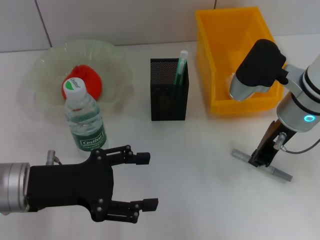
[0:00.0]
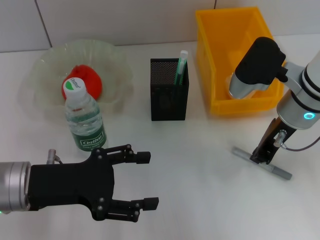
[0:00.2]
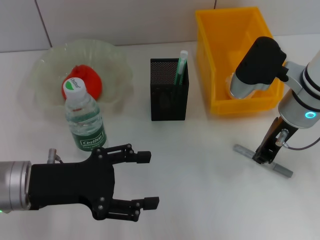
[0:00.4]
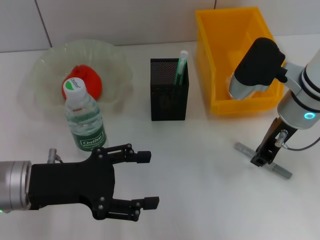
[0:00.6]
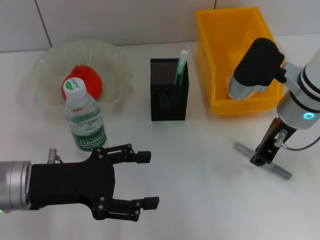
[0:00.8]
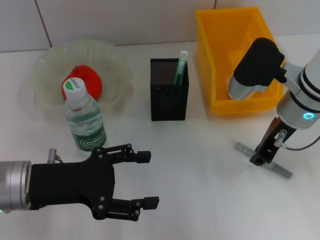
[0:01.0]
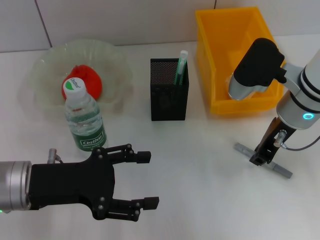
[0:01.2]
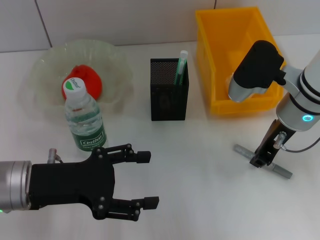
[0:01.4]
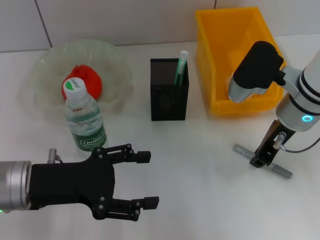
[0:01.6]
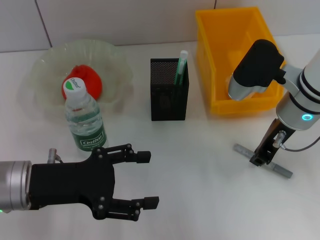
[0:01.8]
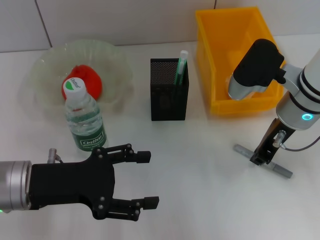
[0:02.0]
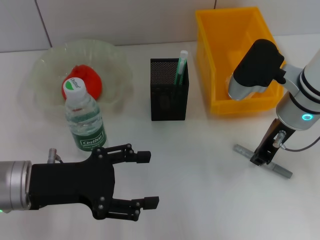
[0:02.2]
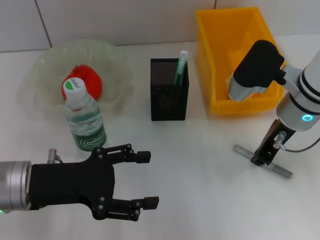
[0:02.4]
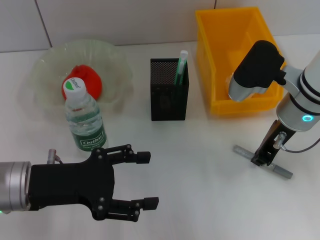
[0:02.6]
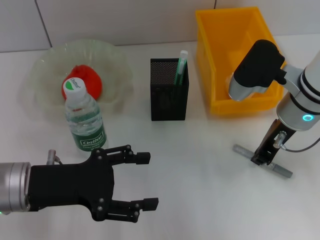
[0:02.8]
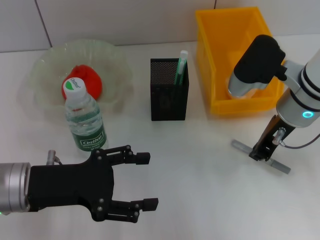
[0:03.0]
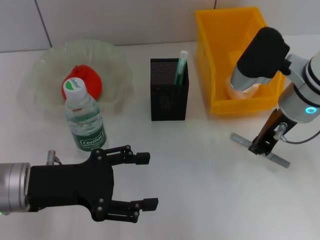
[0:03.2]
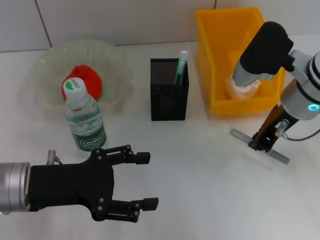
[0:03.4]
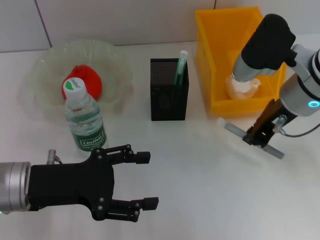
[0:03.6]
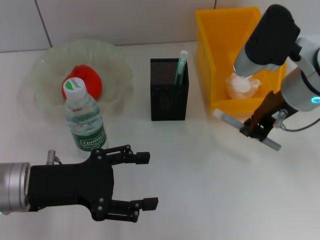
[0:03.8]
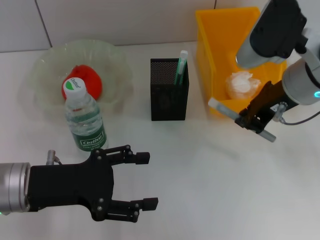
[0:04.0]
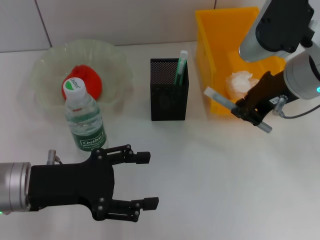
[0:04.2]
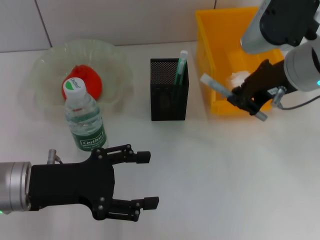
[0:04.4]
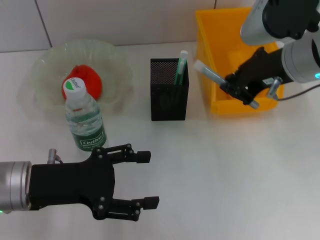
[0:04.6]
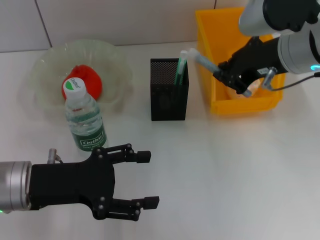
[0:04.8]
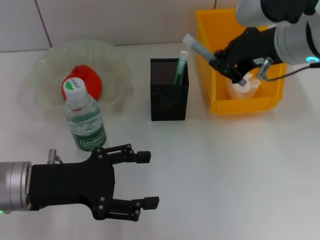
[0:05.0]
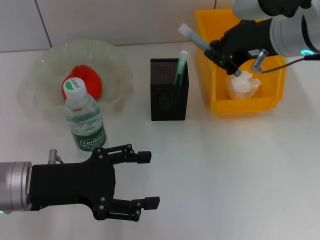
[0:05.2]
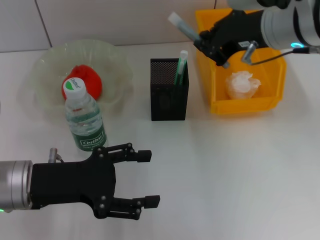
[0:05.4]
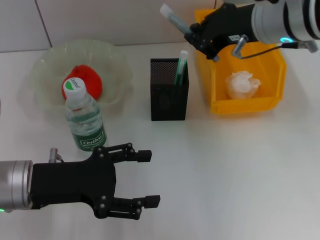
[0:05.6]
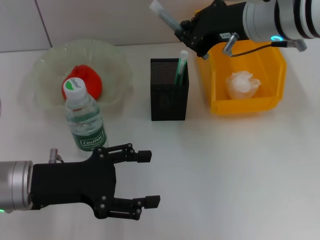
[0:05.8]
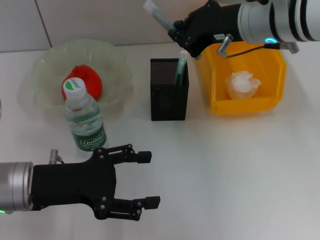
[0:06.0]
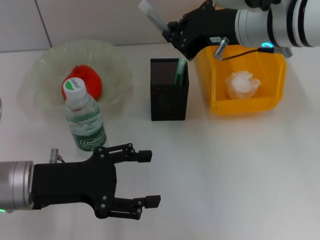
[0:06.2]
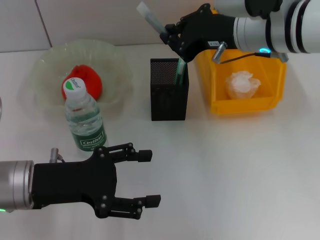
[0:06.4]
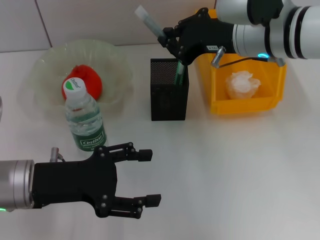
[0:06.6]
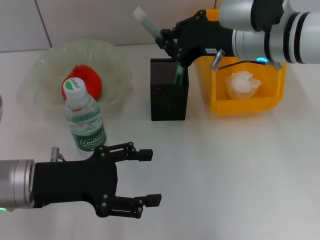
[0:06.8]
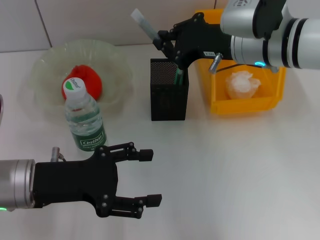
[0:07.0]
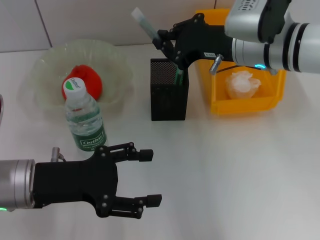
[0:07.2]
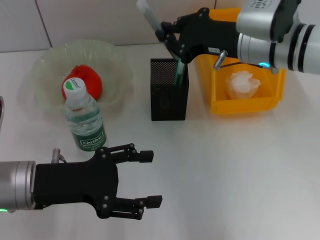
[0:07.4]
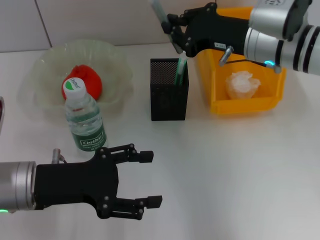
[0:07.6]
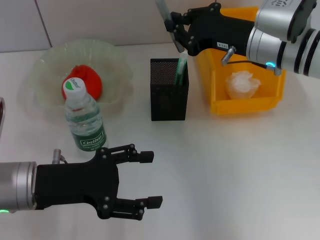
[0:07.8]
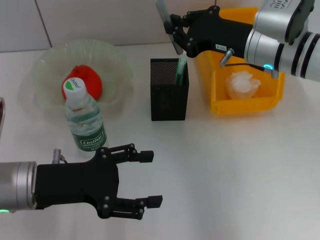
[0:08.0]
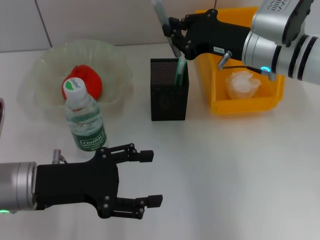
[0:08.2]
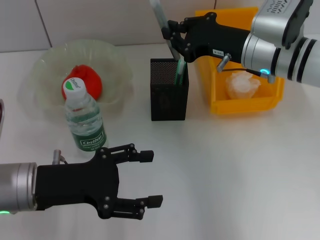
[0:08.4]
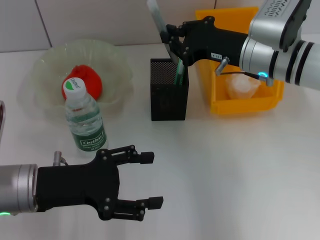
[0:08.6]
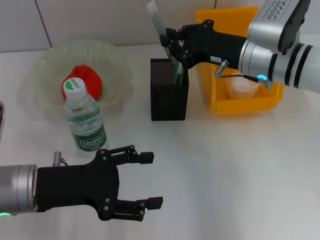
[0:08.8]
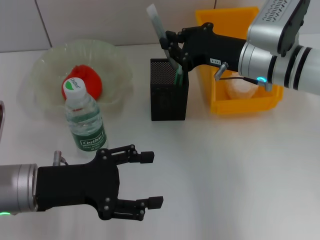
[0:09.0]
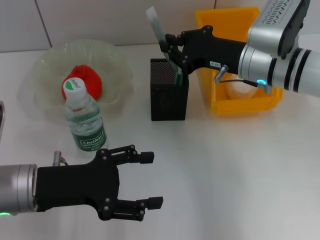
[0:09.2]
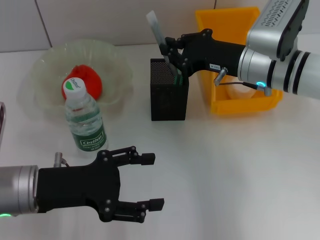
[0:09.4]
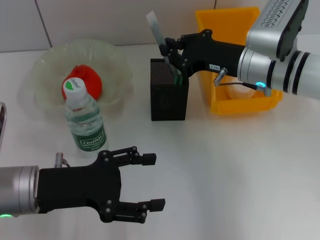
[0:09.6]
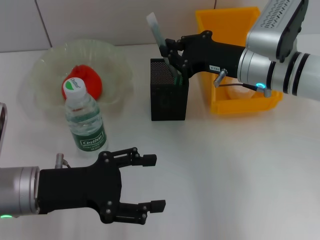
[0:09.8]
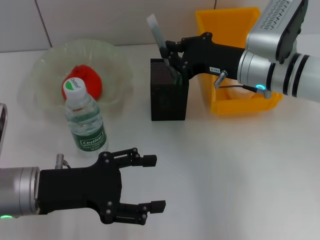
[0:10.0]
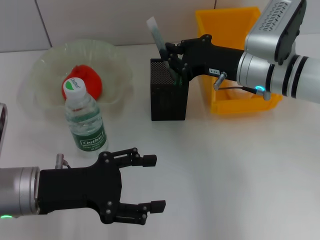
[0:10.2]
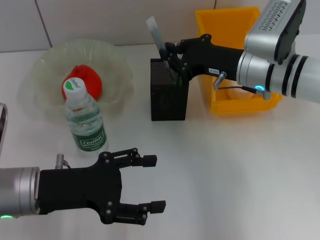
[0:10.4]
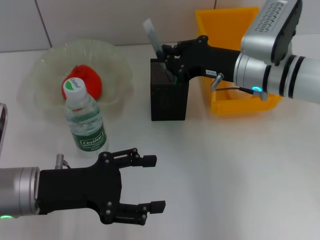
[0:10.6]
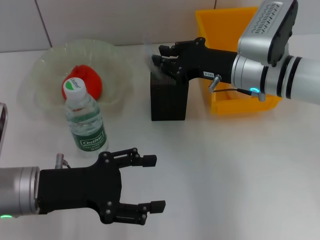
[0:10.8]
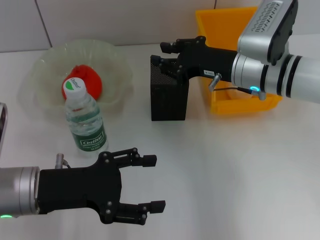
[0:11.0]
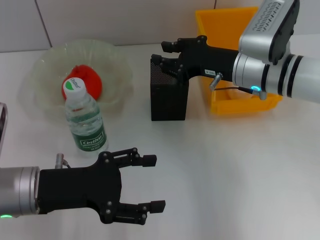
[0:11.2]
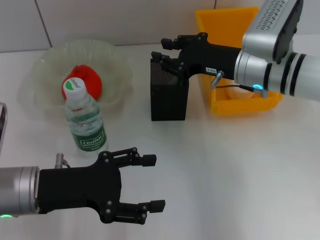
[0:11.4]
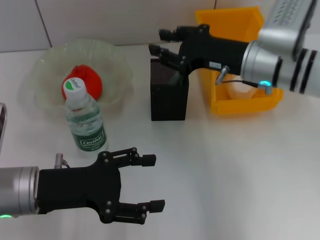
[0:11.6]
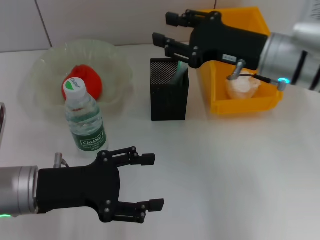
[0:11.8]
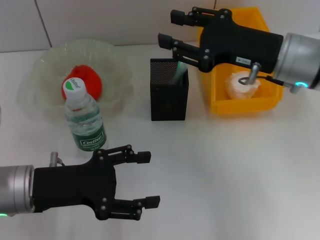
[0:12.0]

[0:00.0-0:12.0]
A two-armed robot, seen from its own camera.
Step, 0:00.0 to 0:02.6: Grab the gray glue with the right hand.
Step, 0:02.8 to 0:11.2: Place the gray glue into the pen holder with the right hand.
0:00.0 to 0:03.0: Both grippers stay about where they are.
0:03.0 to 0:04.4: The right gripper is displaced upward by roughly 10 cm.
0:04.4 to 0:06.0: The right gripper ends up some 5 cm from where it was.
0:06.0 to 0:07.6: The right gripper is displaced downward by approximately 5 cm.
0:07.6 to 0:09.0: The grippers make only small movements.
0:09.0 to 0:10.4: Both grippers stay put.
0:10.4 to 0:12.0: The right gripper ends up roughly 5 cm from where it was, and opens its fingers.

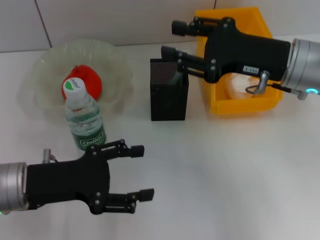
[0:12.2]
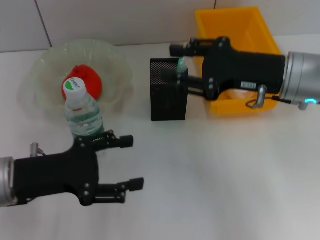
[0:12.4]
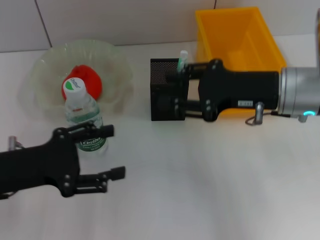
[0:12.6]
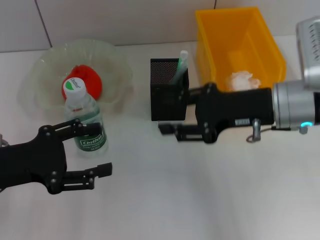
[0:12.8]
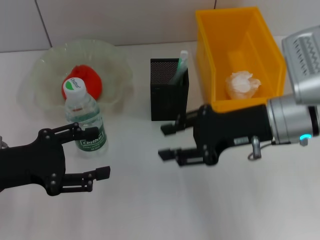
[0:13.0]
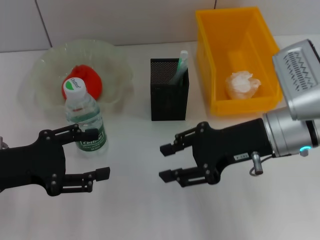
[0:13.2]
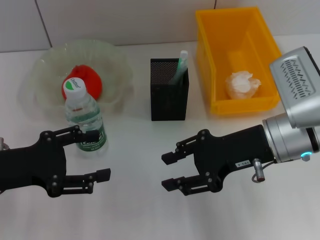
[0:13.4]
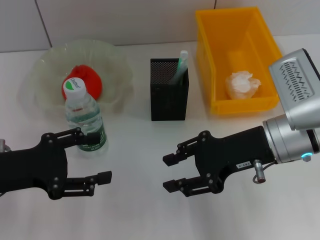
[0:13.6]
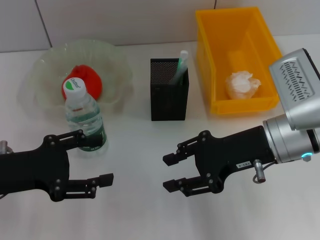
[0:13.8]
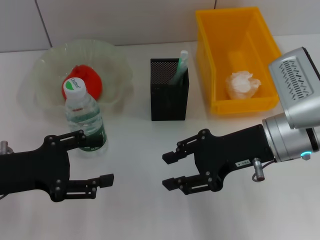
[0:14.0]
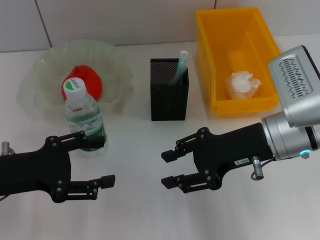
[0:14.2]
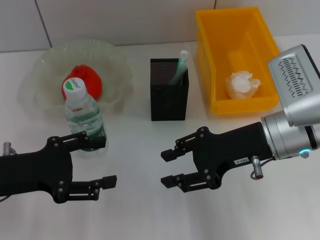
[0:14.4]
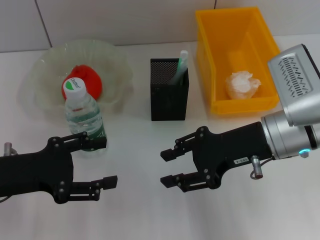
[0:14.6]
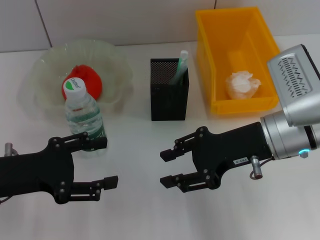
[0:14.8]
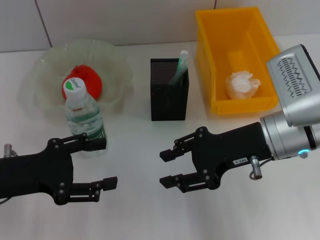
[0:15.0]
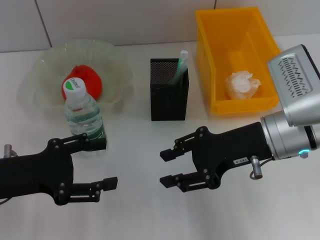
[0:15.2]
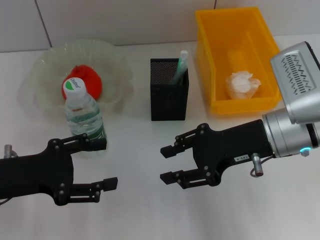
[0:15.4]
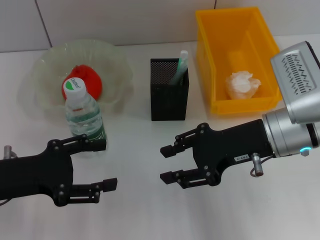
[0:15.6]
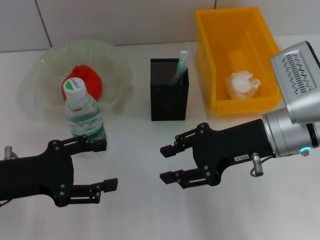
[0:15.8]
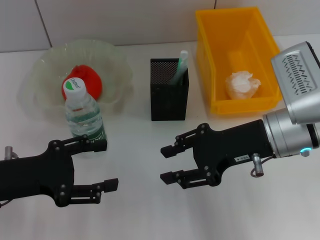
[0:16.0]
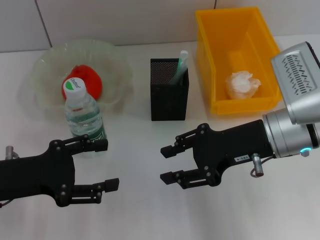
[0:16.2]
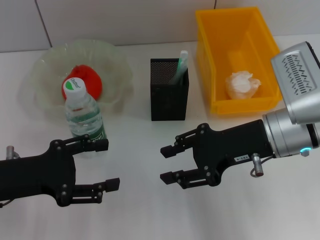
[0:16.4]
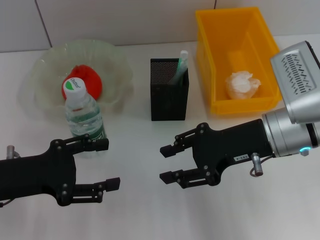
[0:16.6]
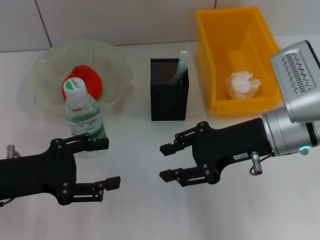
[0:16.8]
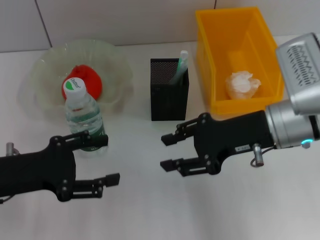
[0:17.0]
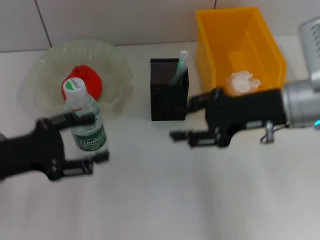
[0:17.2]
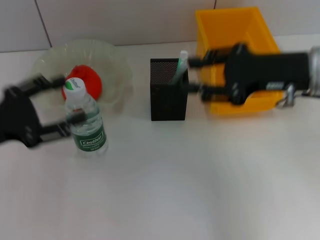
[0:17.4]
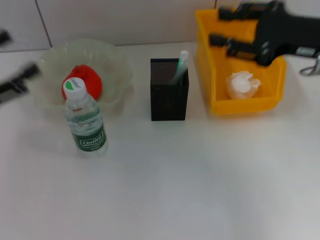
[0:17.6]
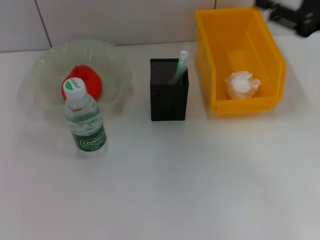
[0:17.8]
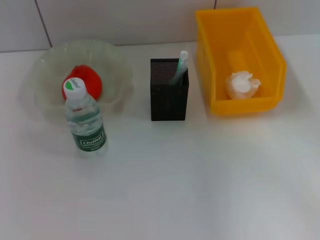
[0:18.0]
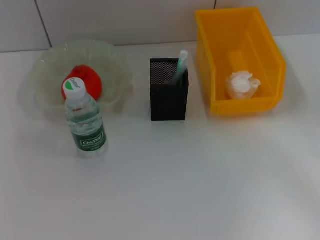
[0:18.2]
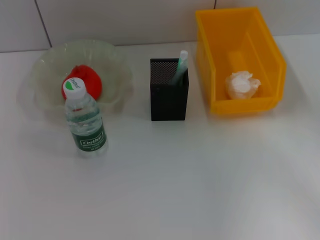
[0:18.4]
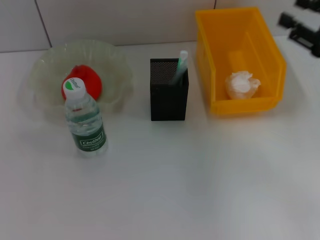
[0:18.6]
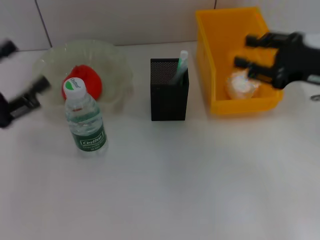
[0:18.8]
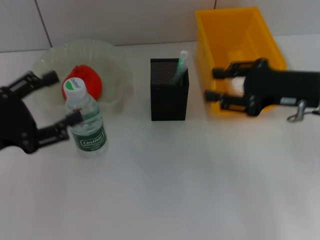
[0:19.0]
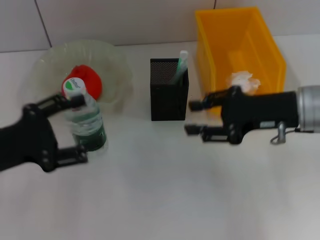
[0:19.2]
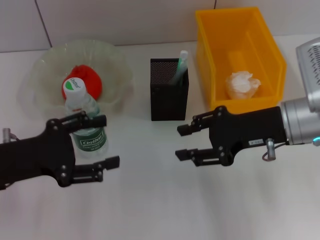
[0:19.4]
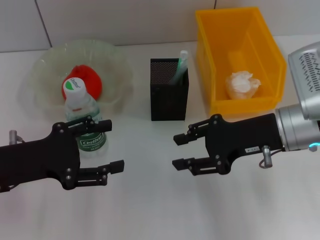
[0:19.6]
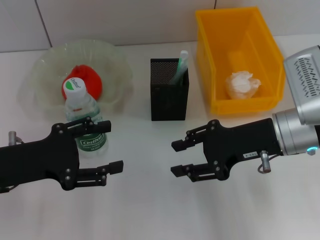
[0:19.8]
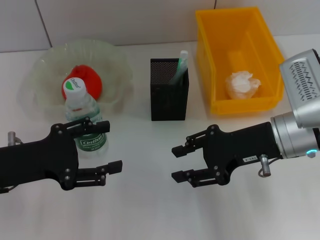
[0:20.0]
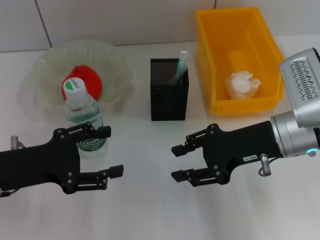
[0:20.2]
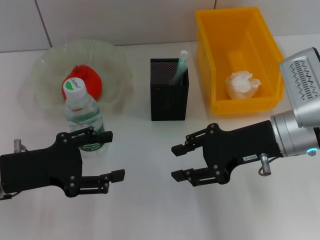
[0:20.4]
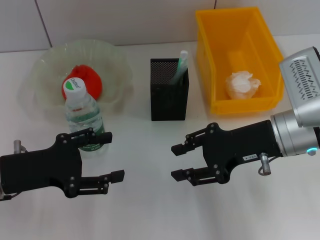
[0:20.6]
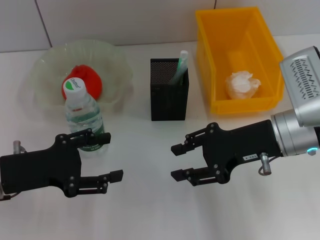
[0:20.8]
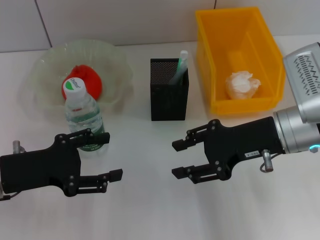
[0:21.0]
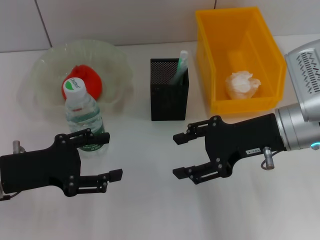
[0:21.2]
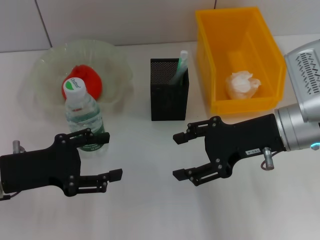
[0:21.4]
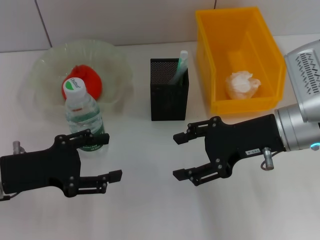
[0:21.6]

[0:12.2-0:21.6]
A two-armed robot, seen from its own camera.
0:12.2 to 0:13.8: The right gripper shifts by approximately 5 cm.
0:13.8 to 0:15.4: Neither gripper changes place.
0:15.4 to 0:17.0: Both grippers stay about where they are.
0:17.0 to 0:18.4: The left gripper is displaced to the left by about 10 cm. Meanwhile the right gripper heads to the right, covering some 20 cm.
0:18.4 to 0:20.0: The right gripper heads to the left, covering some 15 cm. The left gripper travels to the right by approximately 10 cm.
0:20.0 to 0:21.6: The grippers make only small movements.

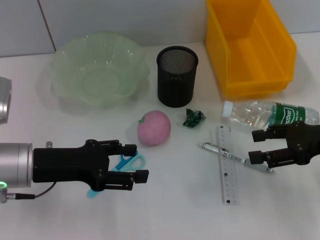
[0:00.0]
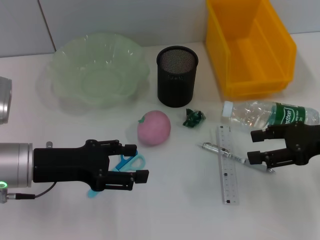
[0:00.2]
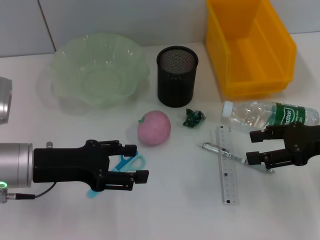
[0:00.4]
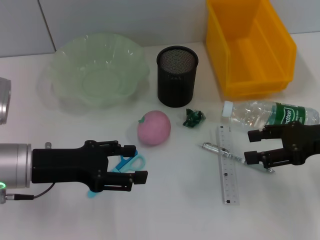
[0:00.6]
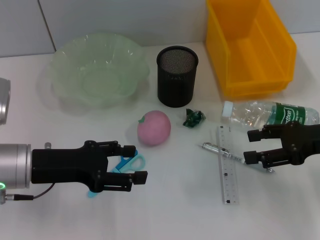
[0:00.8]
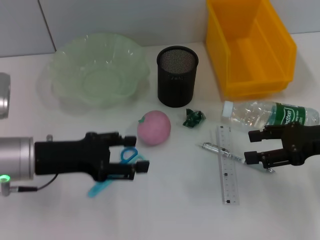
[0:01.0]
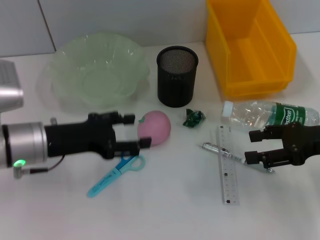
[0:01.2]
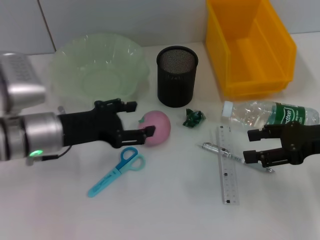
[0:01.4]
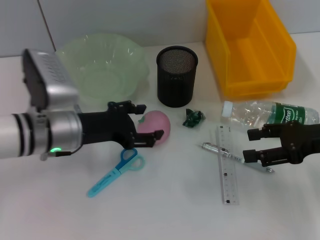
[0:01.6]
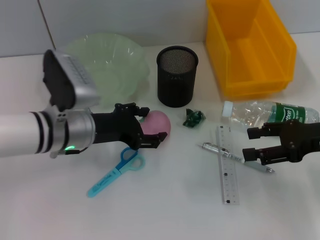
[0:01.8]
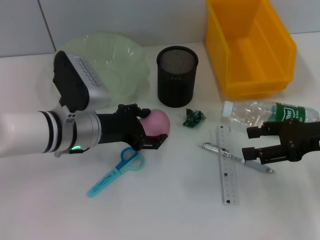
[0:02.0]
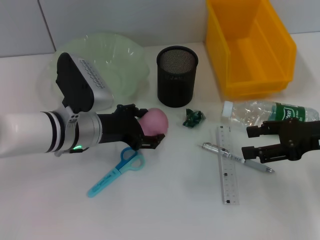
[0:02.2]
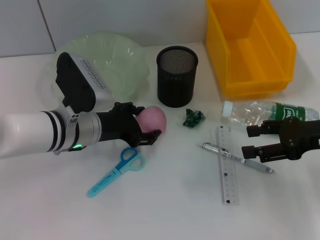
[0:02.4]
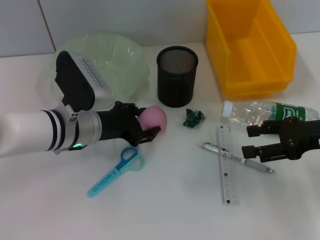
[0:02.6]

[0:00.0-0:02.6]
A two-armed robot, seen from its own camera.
Step, 0:00.0 to 0:02.6: Grab the peach with the left hand.
0:00.0 to 0:01.2: The grippers move only a little.
0:01.2 to 0:02.6: The left gripper moves to the right, about 5 cm.
